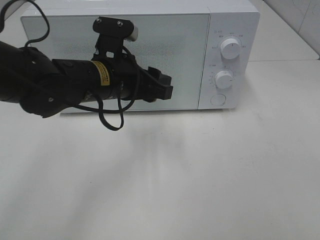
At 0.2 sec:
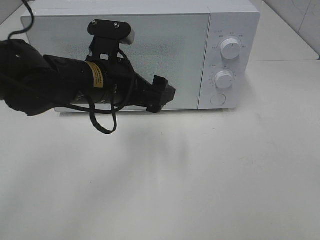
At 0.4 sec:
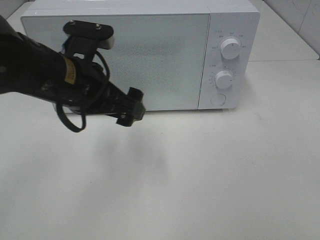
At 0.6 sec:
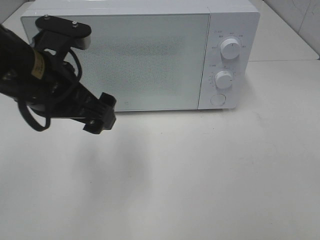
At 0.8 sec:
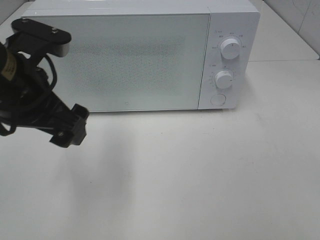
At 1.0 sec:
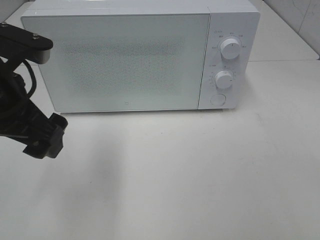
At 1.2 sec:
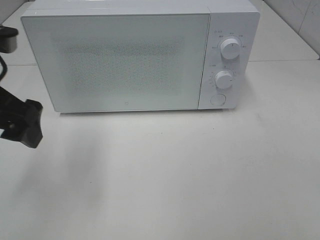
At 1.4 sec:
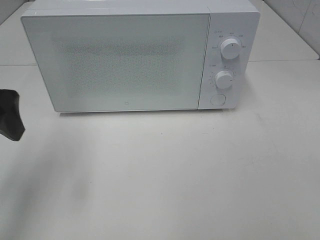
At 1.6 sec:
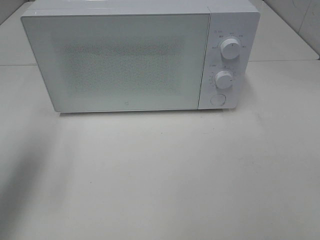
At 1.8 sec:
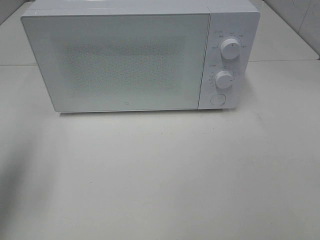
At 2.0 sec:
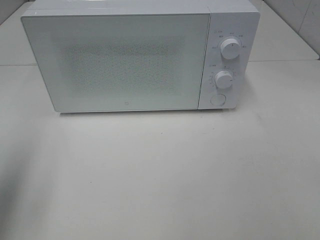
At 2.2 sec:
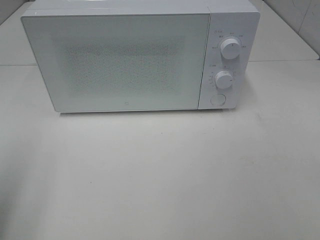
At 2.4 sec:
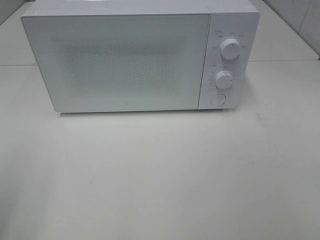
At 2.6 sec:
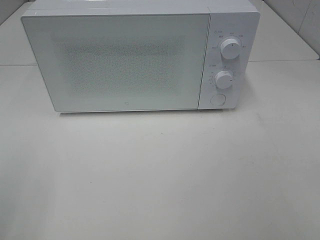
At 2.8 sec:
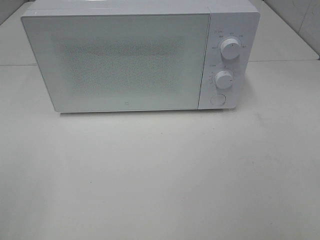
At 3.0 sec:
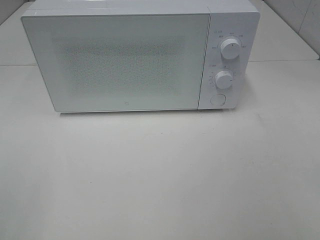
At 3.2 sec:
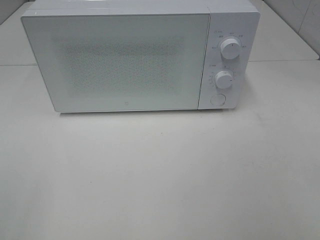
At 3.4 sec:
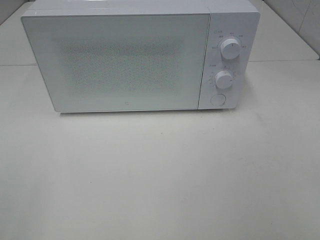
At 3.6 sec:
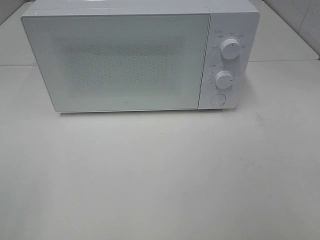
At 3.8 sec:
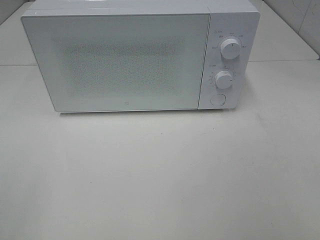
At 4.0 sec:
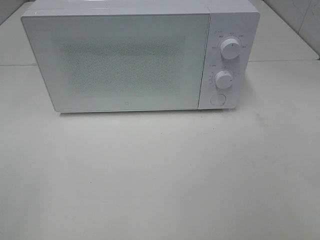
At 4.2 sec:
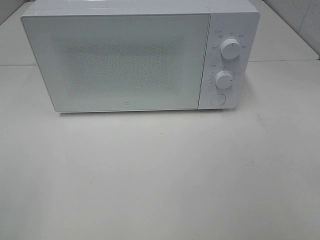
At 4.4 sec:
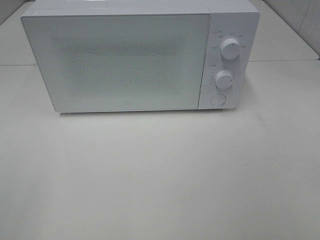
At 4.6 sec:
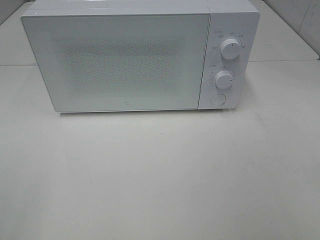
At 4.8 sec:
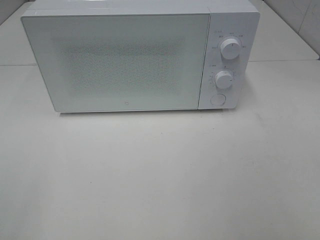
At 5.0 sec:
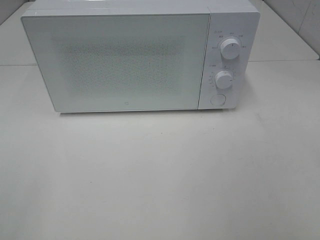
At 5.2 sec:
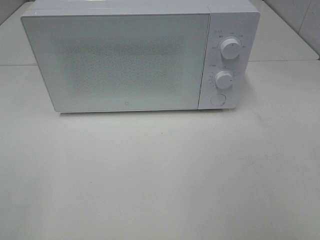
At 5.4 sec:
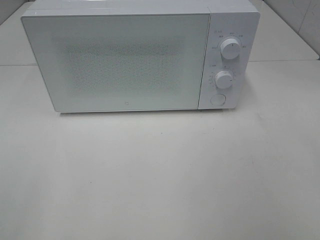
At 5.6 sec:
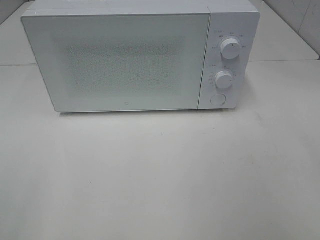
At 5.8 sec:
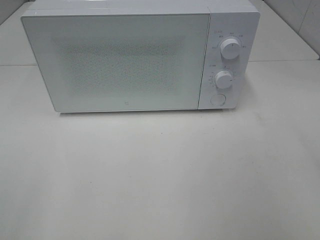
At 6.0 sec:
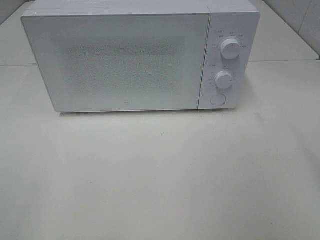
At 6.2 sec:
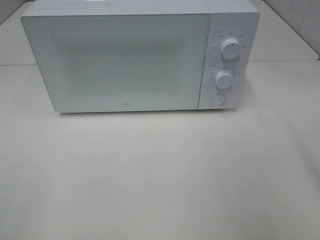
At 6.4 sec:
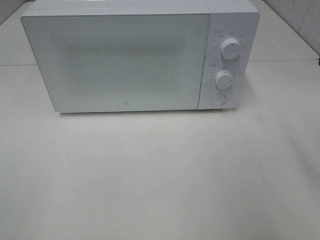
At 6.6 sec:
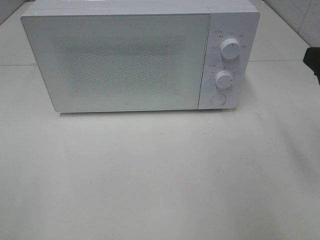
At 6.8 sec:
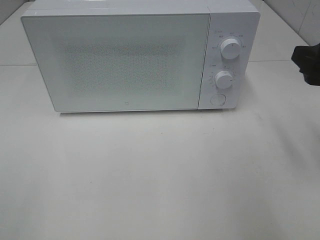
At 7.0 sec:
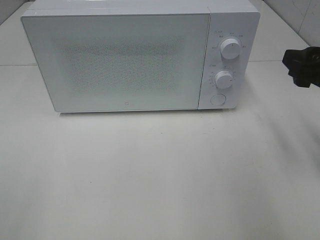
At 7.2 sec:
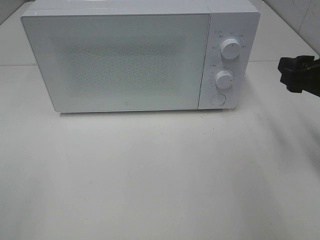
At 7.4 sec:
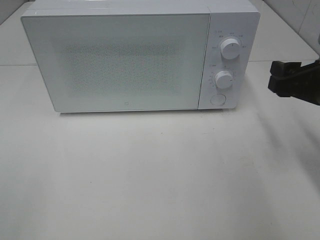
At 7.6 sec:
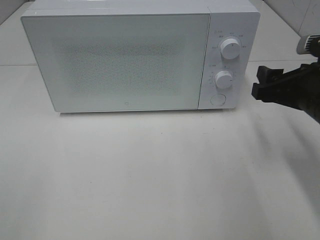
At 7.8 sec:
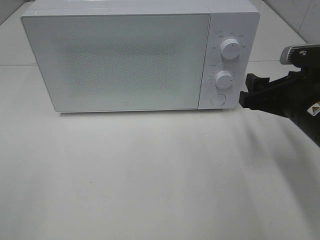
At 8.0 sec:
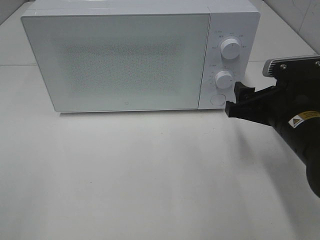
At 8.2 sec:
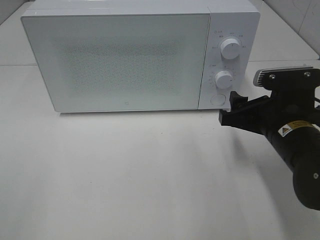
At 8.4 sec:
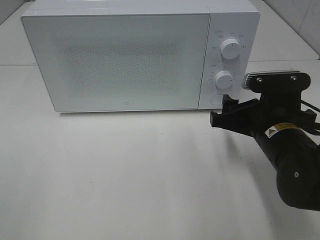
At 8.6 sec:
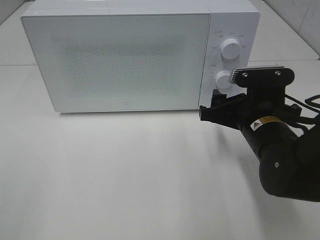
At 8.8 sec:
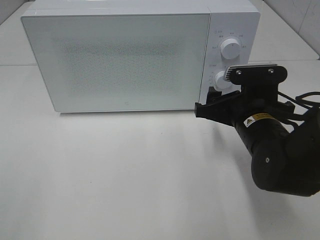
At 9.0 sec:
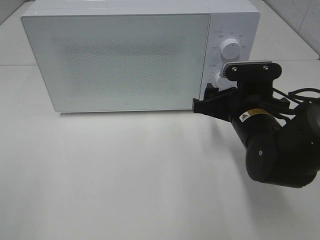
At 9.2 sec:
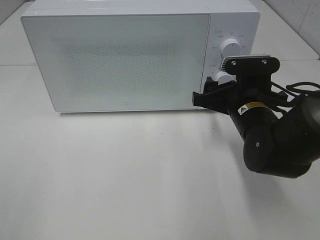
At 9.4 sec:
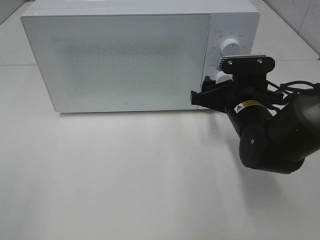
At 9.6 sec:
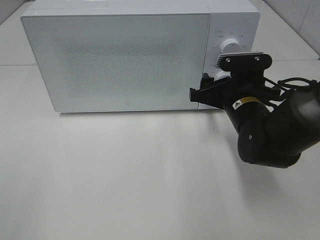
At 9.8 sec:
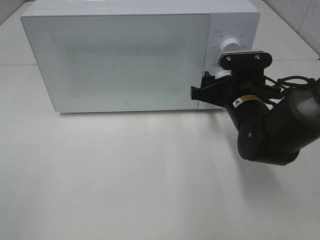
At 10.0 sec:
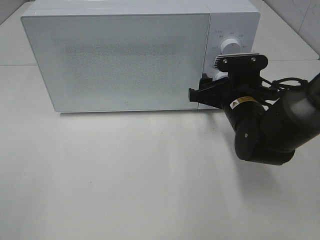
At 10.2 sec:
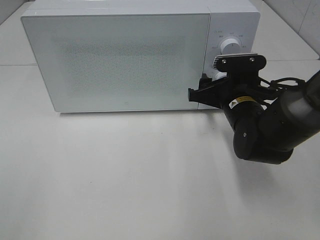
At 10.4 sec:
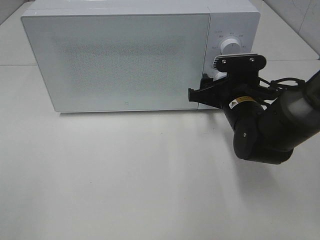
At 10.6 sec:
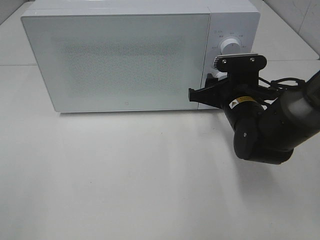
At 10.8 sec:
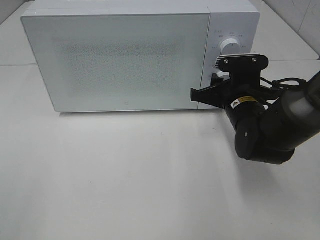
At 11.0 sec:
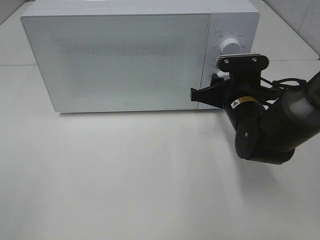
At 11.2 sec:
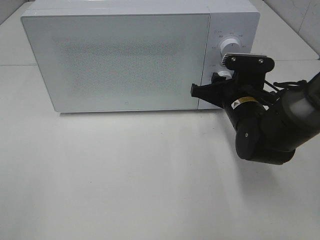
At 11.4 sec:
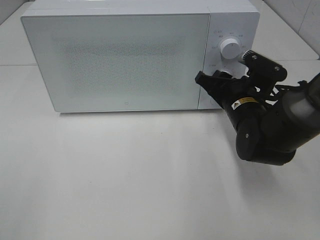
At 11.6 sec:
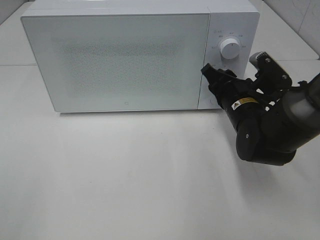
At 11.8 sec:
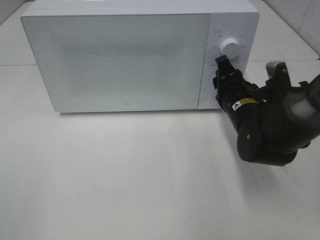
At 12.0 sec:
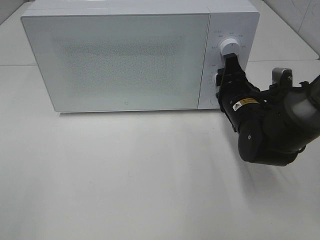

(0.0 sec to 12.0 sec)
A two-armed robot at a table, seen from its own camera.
Task of the whole recording: Heat the burger.
0.0 sec - 1.6 sec: The left gripper travels to the left and upward by some 25 cm, and opens up.
1.6 sec - 3.0 sec: The left gripper travels backward by about 20 cm.
3.0 sec - 4.4 sec: Both grippers stay put.
6.0 sec - 7.6 sec: The right gripper travels forward, downward and to the left by approximately 15 cm.
7.6 sec - 9.0 sec: The right gripper shifts roughly 10 cm to the left and downward.
9.0 sec - 10.4 sec: The grippers move only a little.

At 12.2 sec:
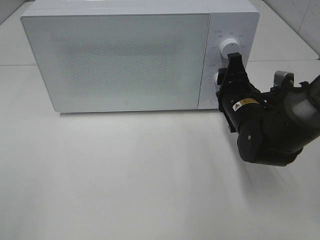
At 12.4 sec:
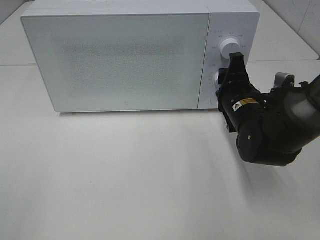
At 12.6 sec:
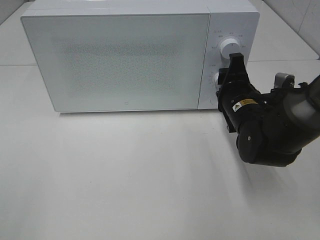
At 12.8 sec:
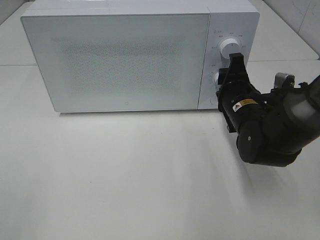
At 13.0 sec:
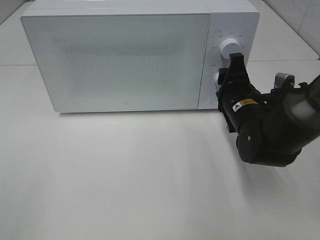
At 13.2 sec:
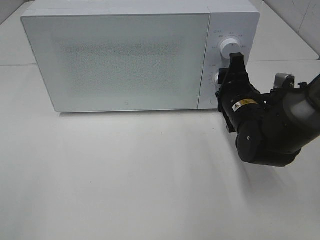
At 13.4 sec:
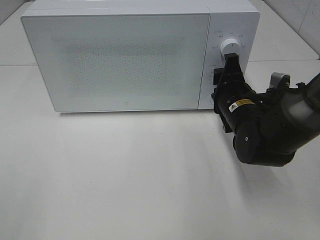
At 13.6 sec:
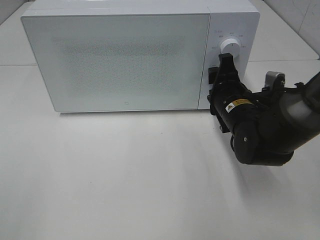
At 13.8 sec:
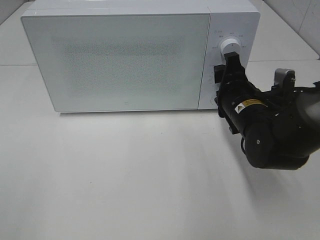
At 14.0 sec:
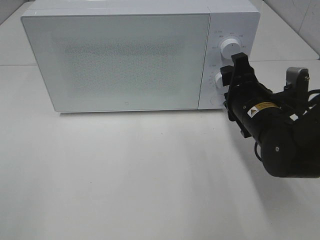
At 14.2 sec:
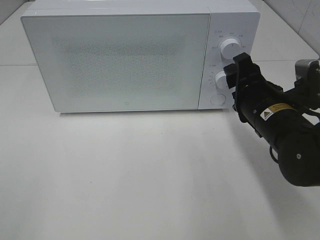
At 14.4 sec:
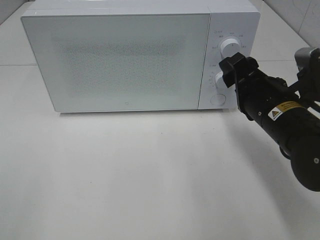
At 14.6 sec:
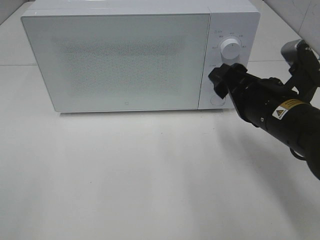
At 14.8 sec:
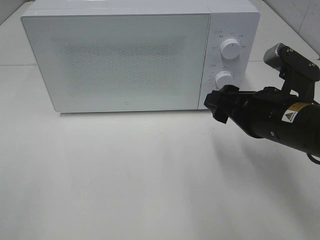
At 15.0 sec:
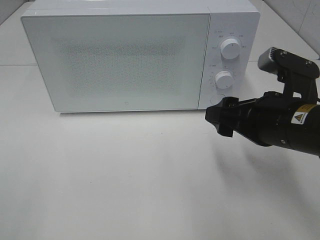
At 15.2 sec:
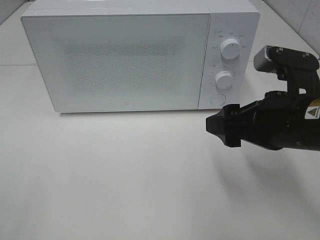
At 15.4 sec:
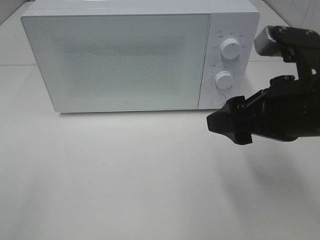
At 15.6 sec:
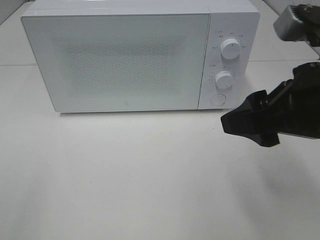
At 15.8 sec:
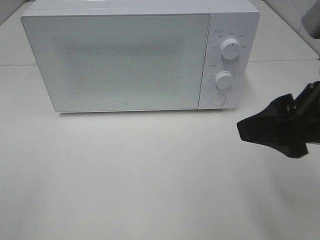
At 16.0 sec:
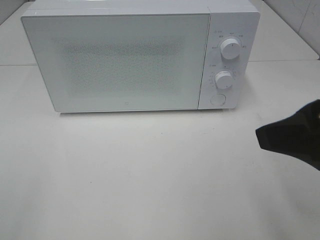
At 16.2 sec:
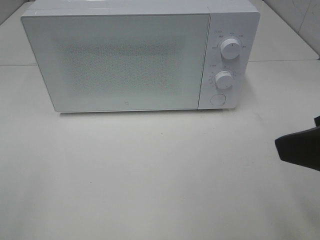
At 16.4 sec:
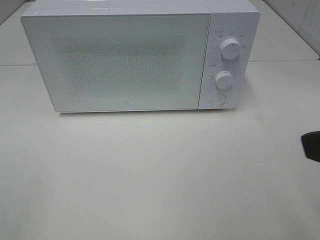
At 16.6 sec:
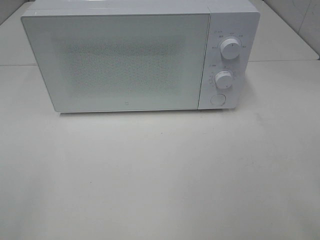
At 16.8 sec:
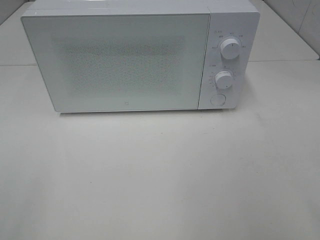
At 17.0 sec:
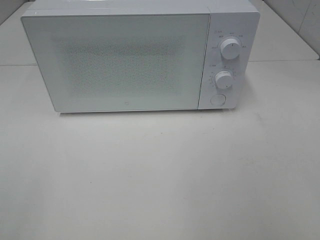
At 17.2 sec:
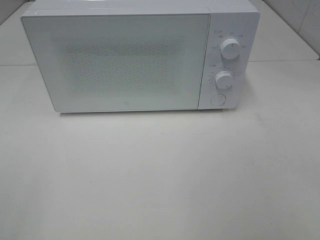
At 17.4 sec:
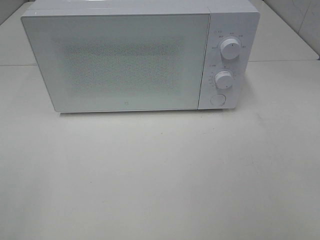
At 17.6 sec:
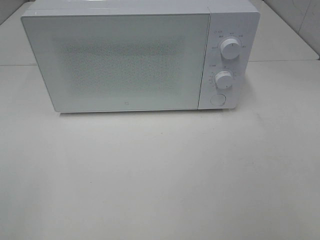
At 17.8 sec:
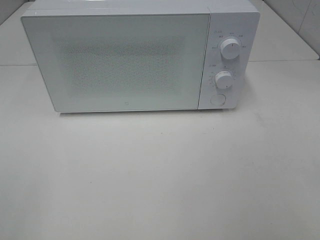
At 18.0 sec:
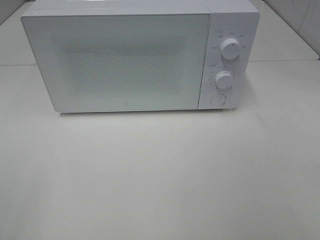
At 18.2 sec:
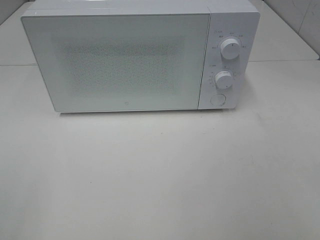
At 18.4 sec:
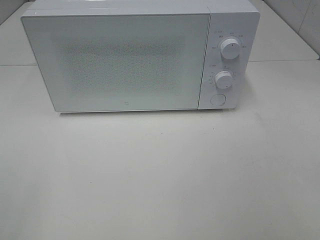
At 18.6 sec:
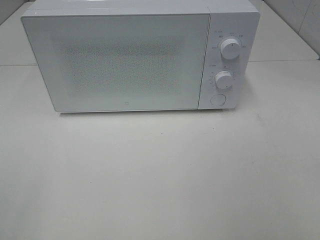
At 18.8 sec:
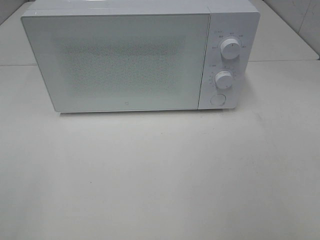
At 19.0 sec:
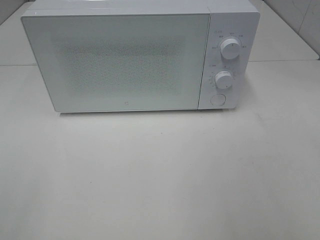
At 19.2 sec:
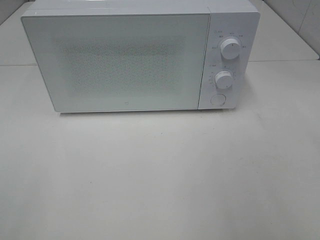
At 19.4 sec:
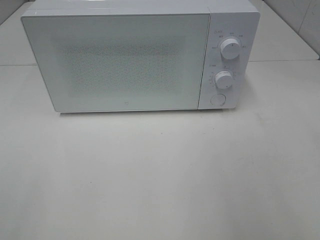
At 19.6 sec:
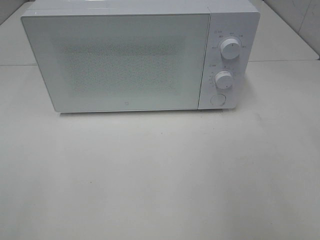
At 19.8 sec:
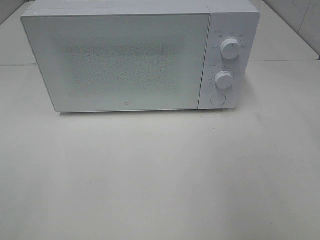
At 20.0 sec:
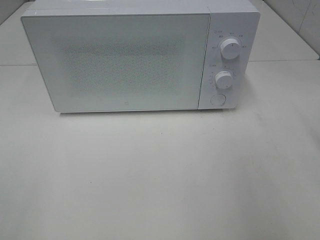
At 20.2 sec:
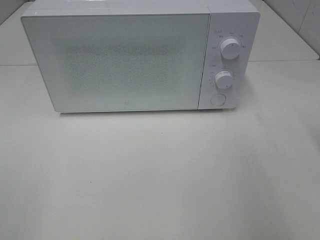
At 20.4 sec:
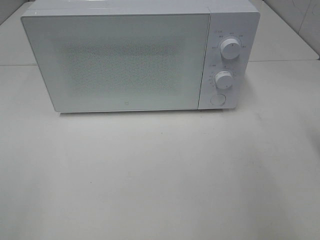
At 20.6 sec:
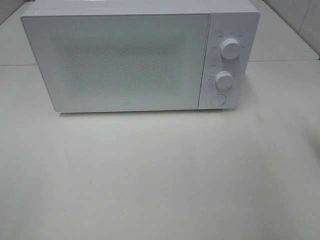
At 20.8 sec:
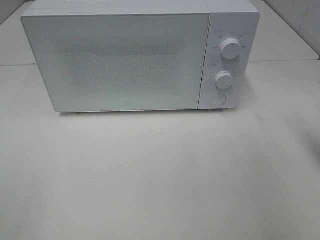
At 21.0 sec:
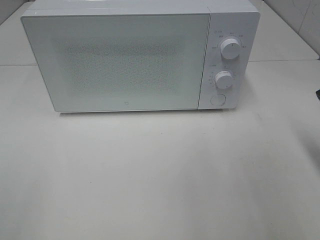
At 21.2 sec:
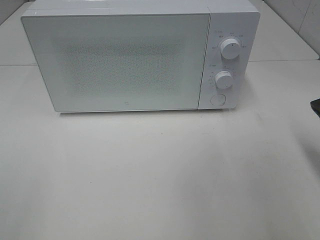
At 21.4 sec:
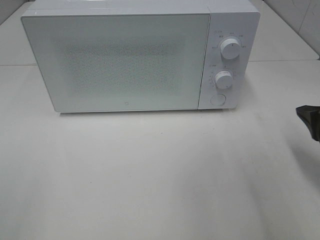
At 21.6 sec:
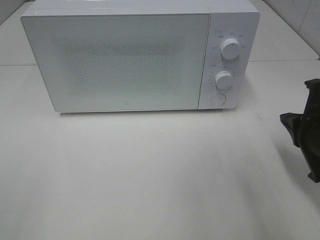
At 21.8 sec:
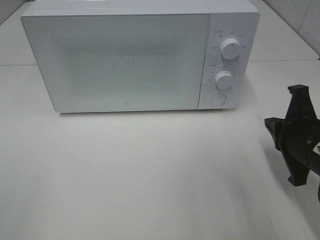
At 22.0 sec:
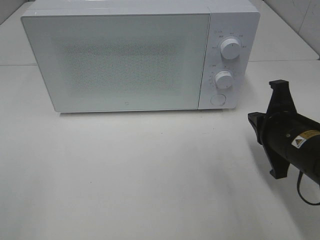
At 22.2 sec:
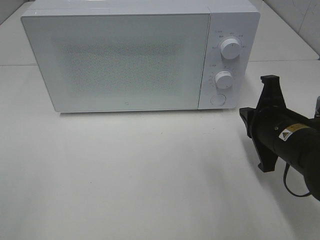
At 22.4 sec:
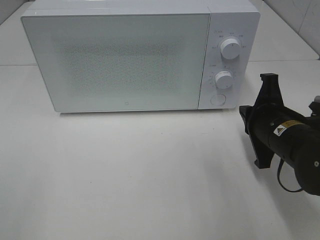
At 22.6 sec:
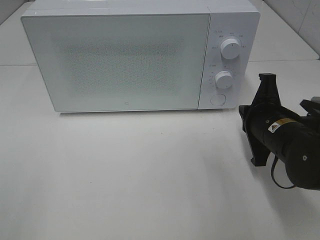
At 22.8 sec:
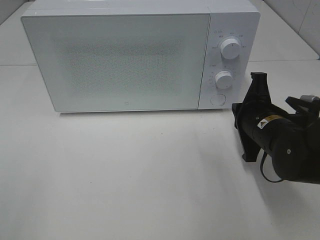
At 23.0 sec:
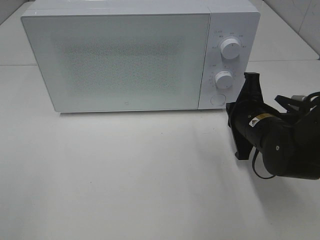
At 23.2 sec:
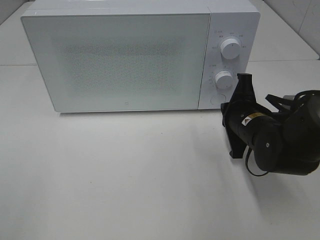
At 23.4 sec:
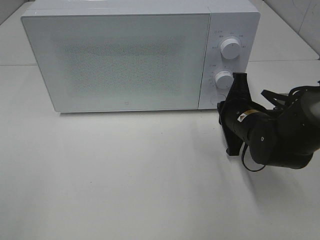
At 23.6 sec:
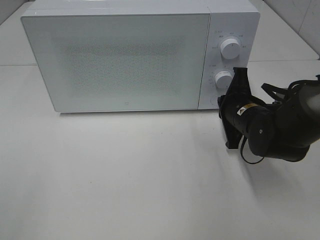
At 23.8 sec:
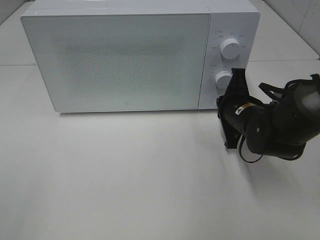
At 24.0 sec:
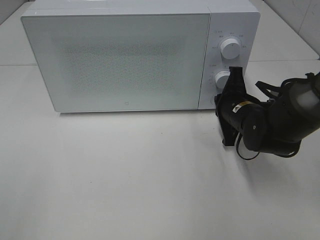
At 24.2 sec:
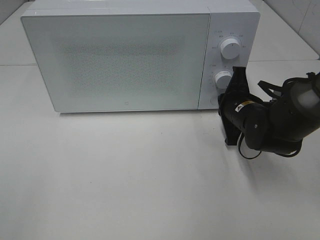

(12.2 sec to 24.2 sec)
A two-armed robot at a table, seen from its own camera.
Task of the whole recording: Heat the burger.
12.2 sec - 13.8 sec: The grippers stay close to where they were, moving slightly.
13.8 sec - 15.2 sec: The right gripper goes about 15 cm backward and upward.
15.2 sec - 16.6 sec: The right gripper goes approximately 20 cm backward, upward and to the right.
19.8 sec - 21.2 sec: The right gripper goes approximately 15 cm downward, and closes.
21.2 sec - 22.6 sec: The right gripper shifts approximately 10 cm to the left and forward.
22.6 sec - 24.2 sec: The right gripper shifts about 10 cm forward.
